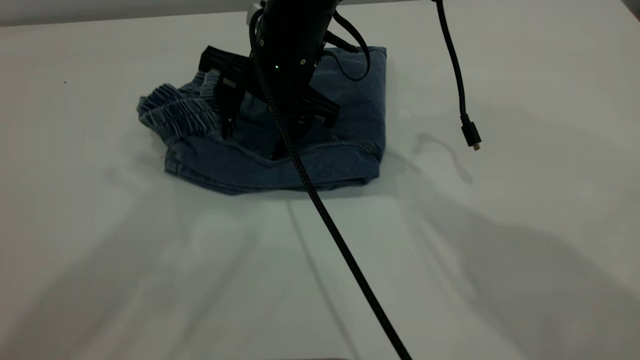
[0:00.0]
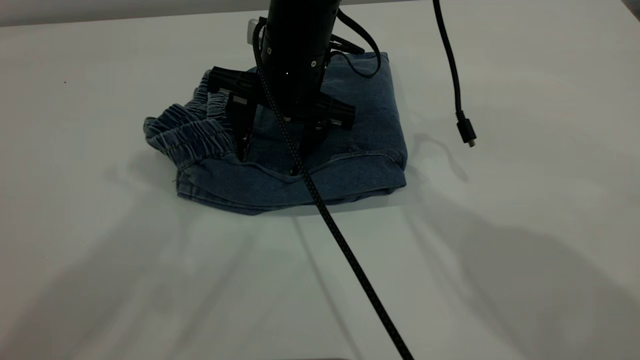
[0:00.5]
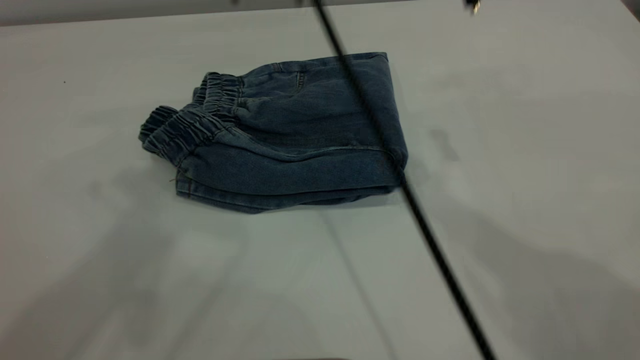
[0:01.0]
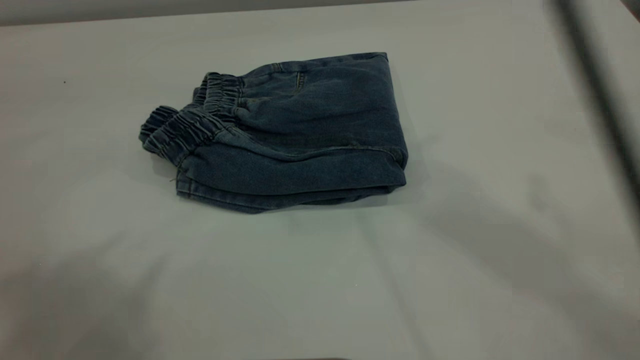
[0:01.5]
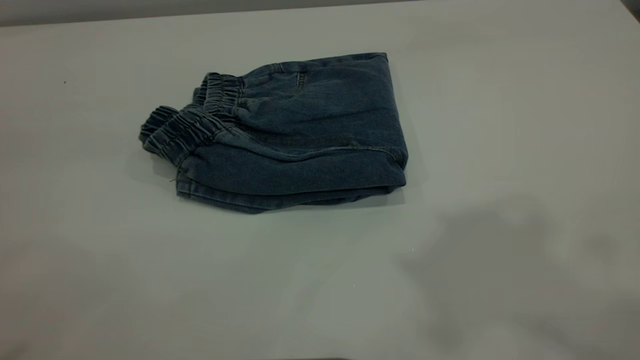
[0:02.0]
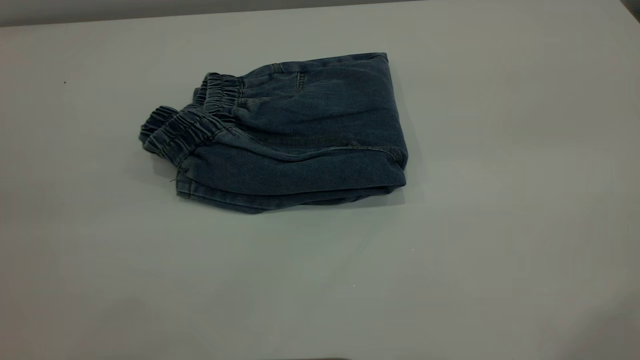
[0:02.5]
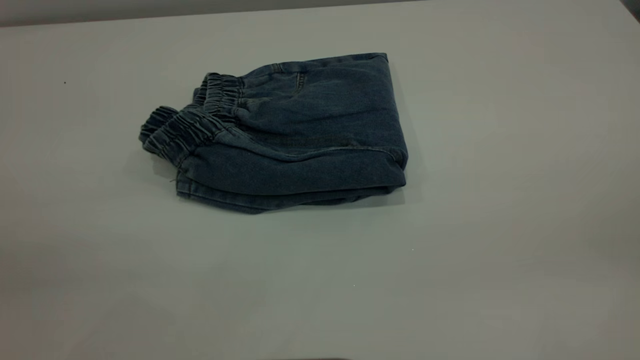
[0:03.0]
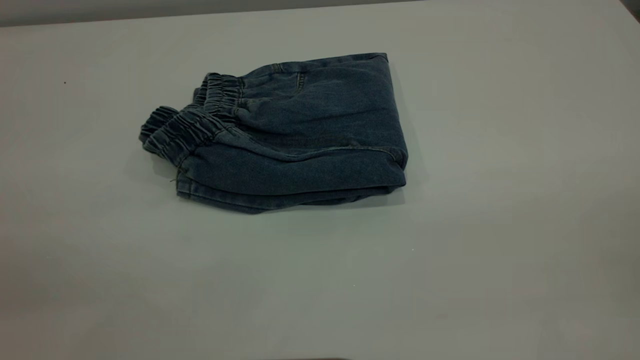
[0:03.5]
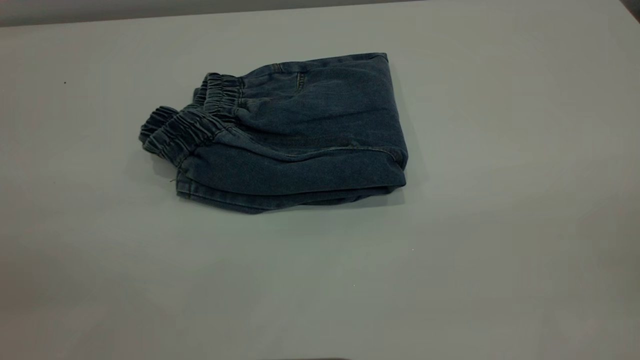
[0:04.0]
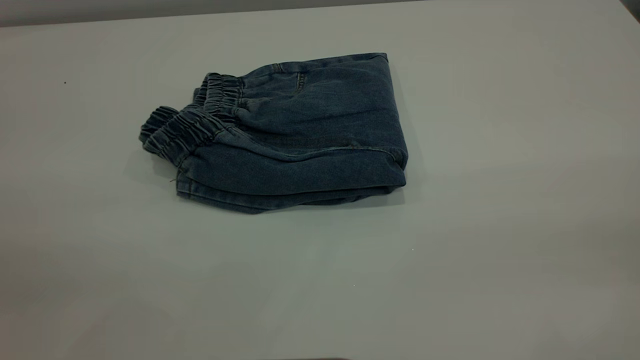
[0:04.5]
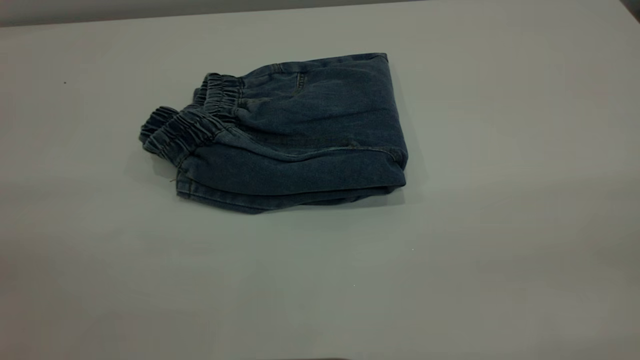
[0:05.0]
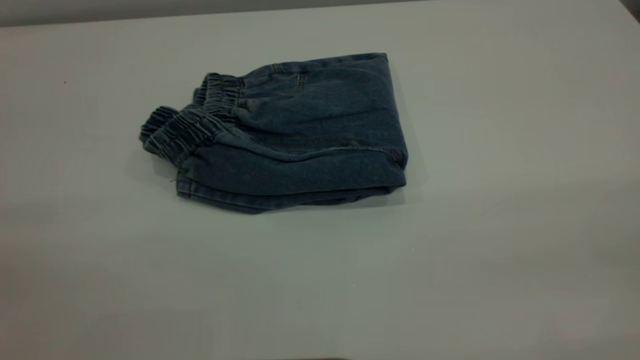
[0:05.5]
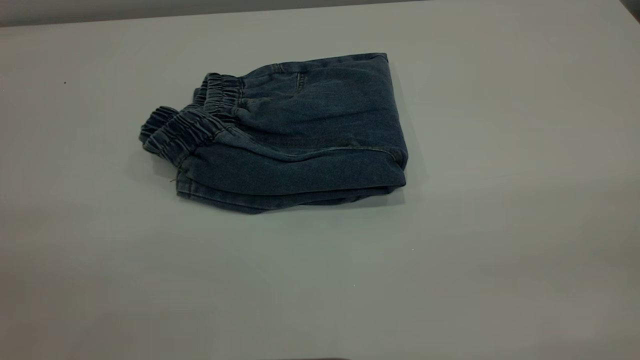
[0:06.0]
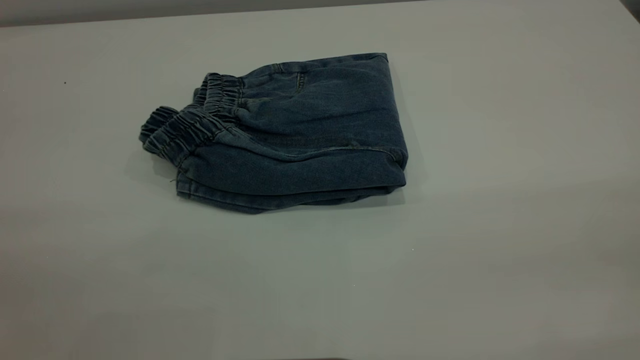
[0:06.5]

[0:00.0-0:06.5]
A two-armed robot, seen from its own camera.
0:00.0 to 0:02.0: The right gripper moves upward, backward and to the right, some 50 cm. The left gripper shifts some 25 cm backward and to the left.

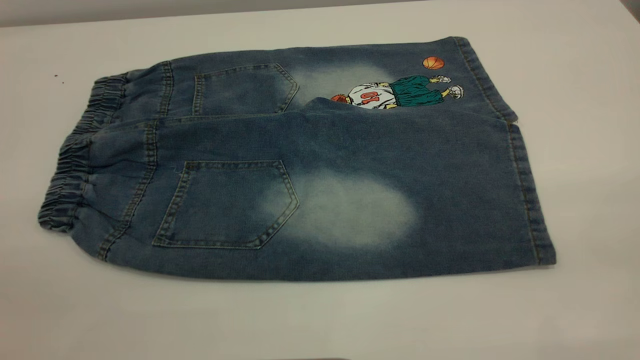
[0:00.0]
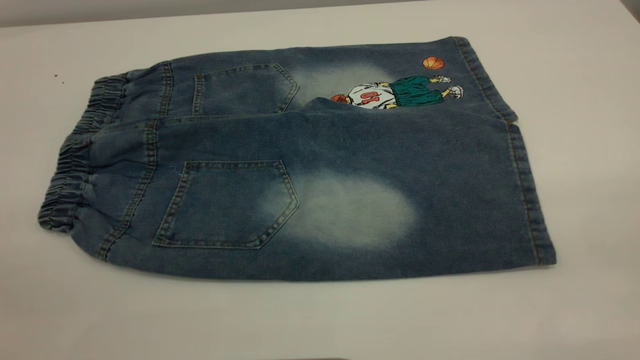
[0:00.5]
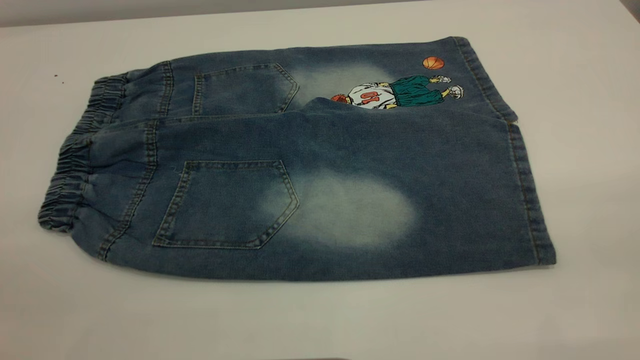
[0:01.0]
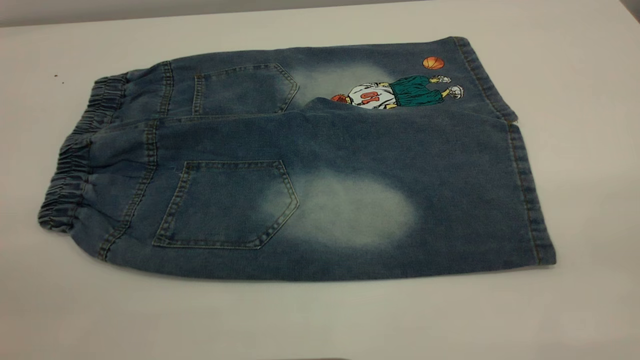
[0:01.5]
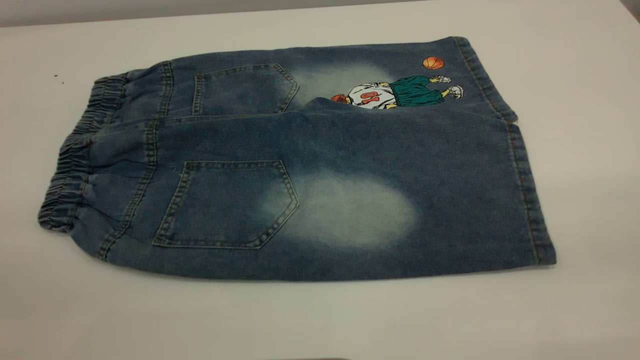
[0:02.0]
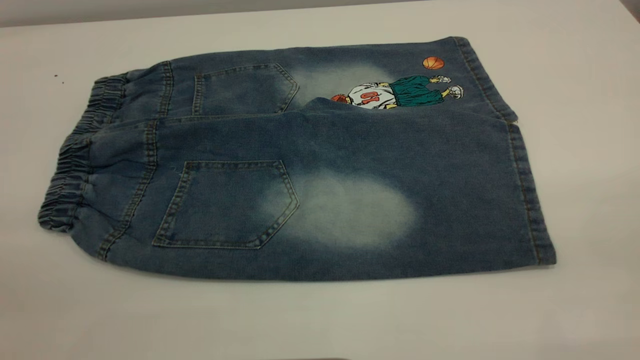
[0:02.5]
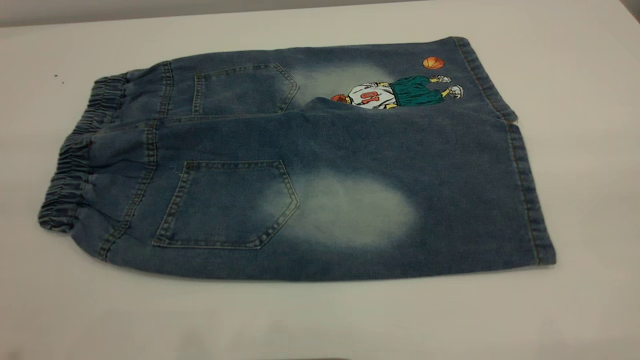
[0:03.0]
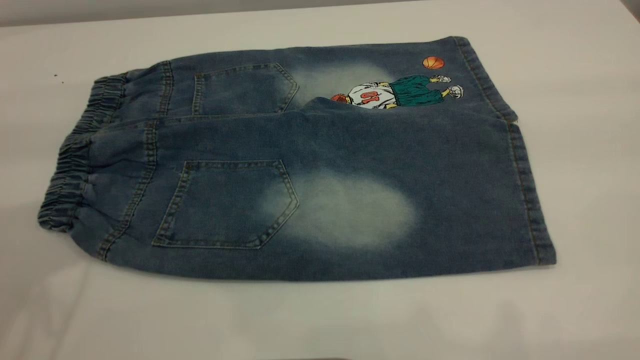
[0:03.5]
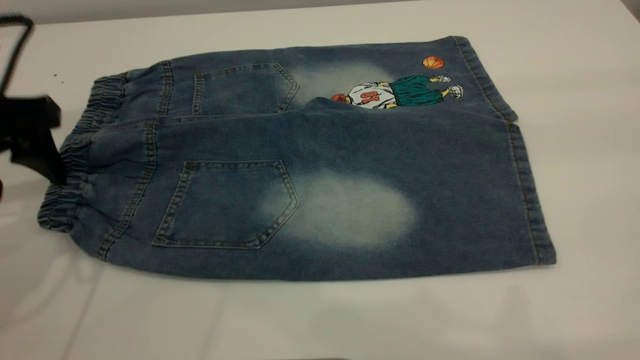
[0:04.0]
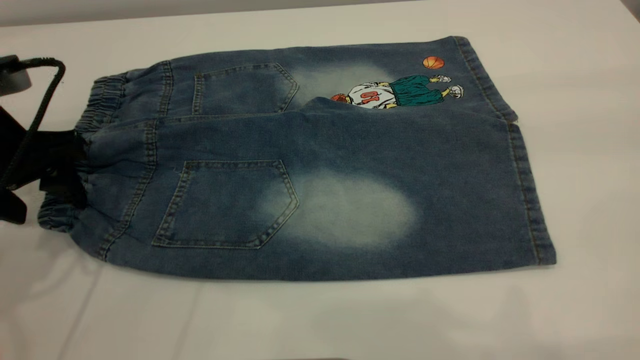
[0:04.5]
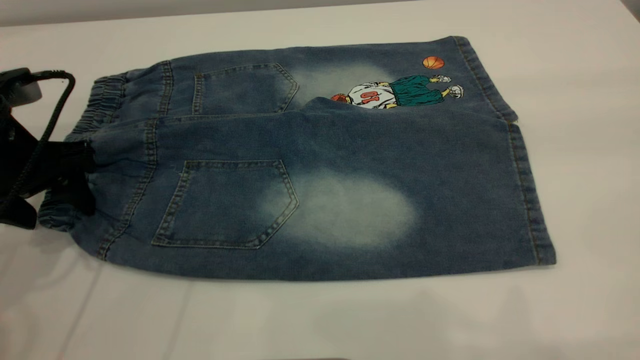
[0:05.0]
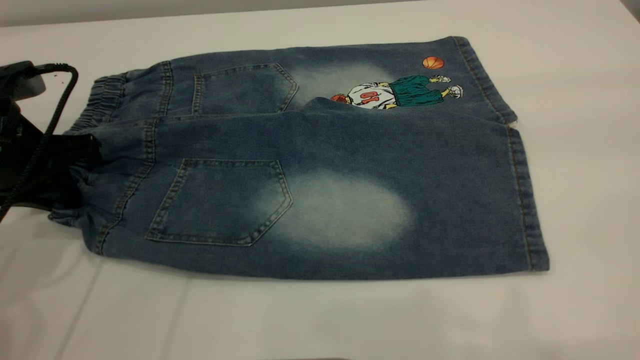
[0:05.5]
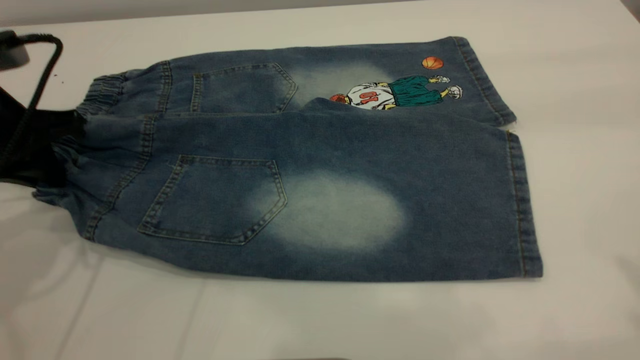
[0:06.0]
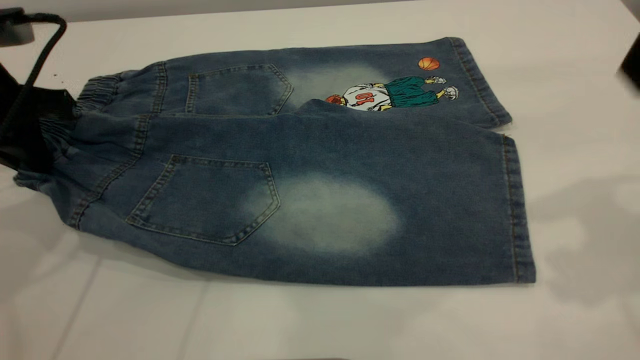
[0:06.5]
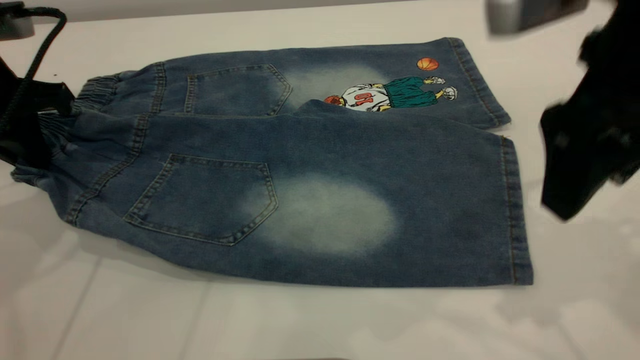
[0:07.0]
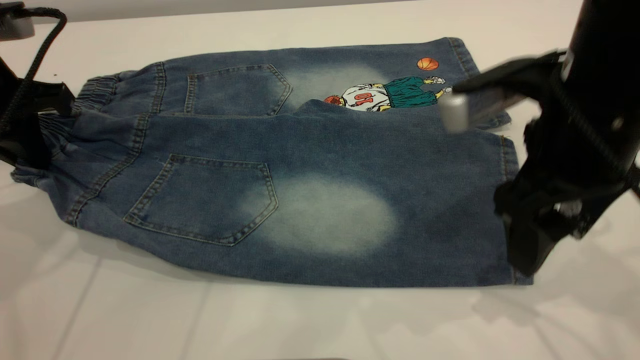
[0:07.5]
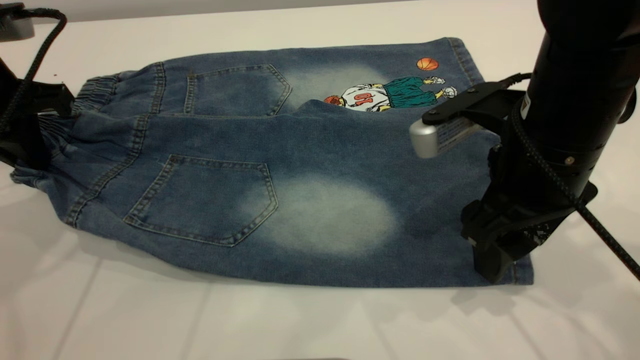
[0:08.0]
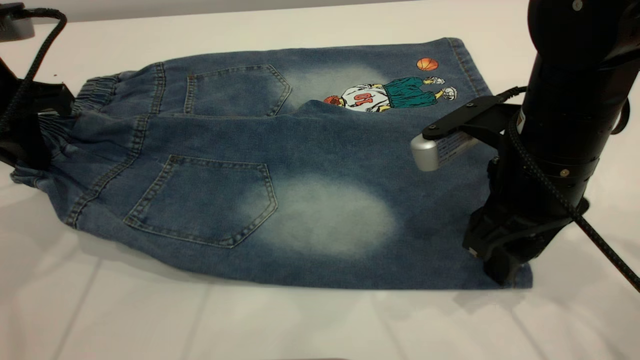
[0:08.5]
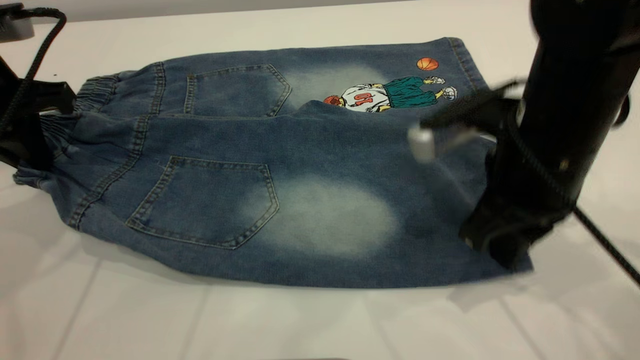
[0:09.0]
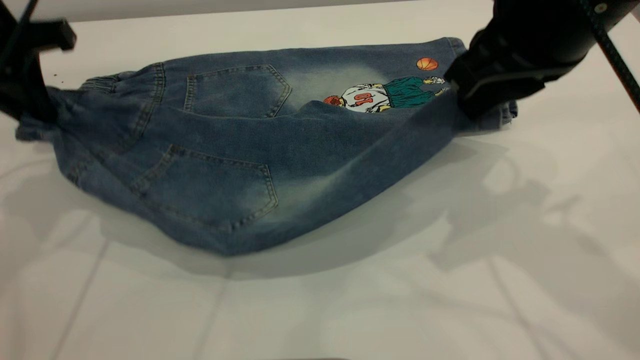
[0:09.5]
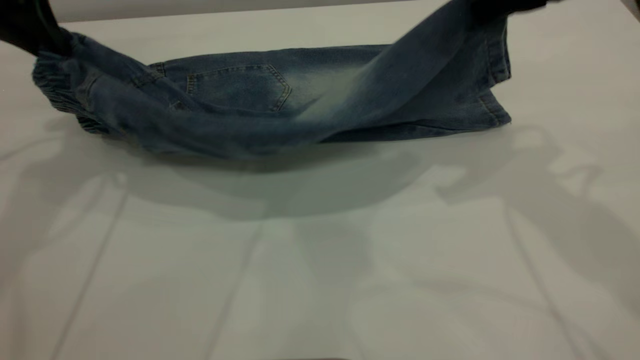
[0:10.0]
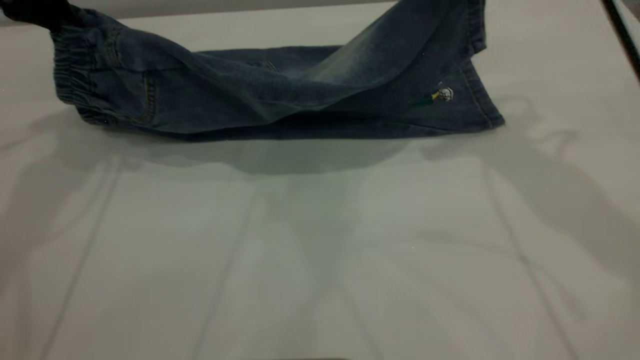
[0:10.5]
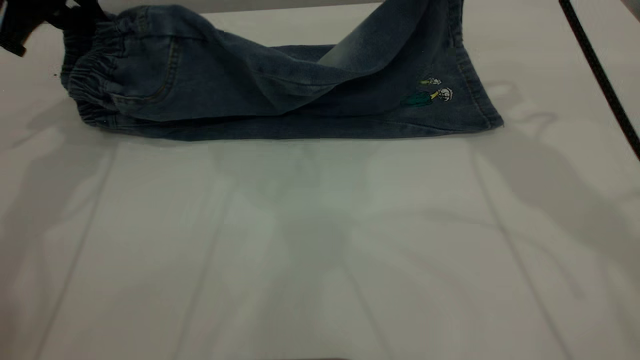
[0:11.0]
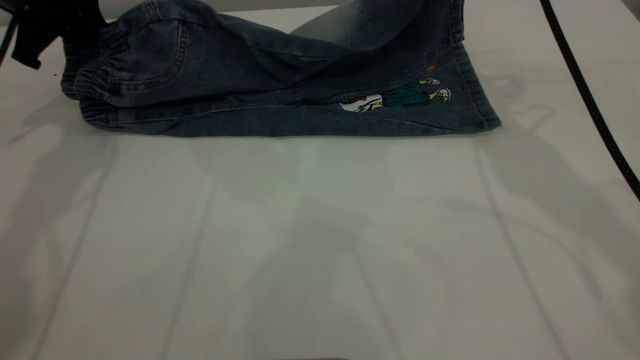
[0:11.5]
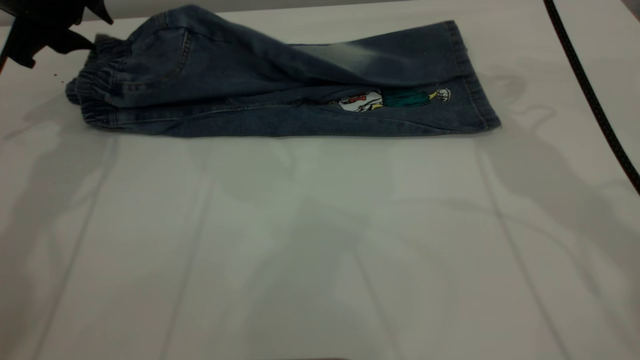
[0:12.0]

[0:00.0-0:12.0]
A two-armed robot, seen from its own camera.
0:00.0 to 0:02.0: Both grippers stay put.
0:02.0 to 0:04.0: The left gripper heads forward and downward, covering some 35 cm.
0:04.0 to 0:06.0: The left gripper closes.
0:06.0 to 0:08.0: The right gripper heads downward and to the left, covering roughly 30 cm.
0:08.0 to 0:10.0: Both grippers travel together upward and forward, some 10 cm. The right gripper closes.
0:10.0 to 0:12.0: The right gripper is displaced forward and downward by some 10 cm, and opens up. Meanwhile the left gripper travels downward and forward by about 10 cm, and opens.

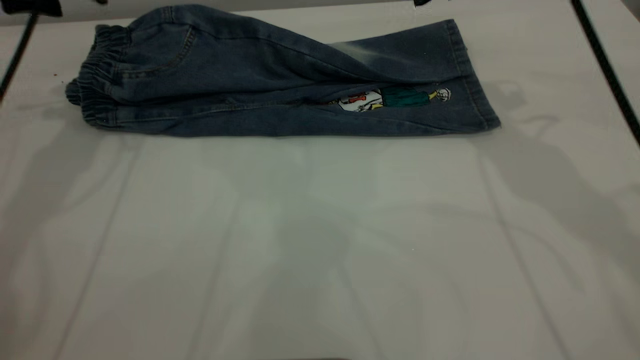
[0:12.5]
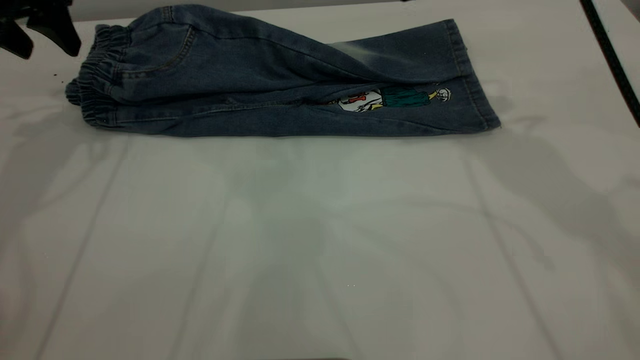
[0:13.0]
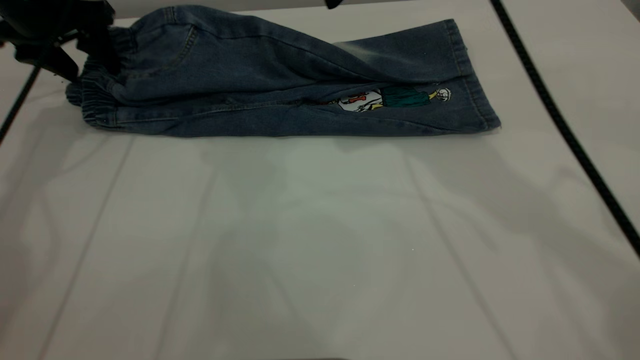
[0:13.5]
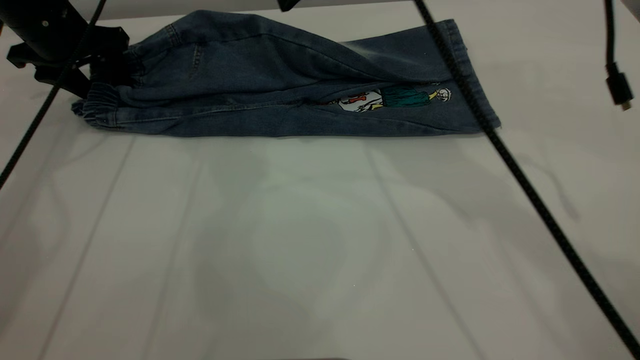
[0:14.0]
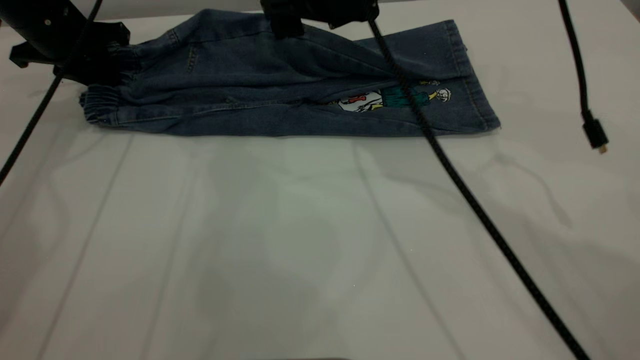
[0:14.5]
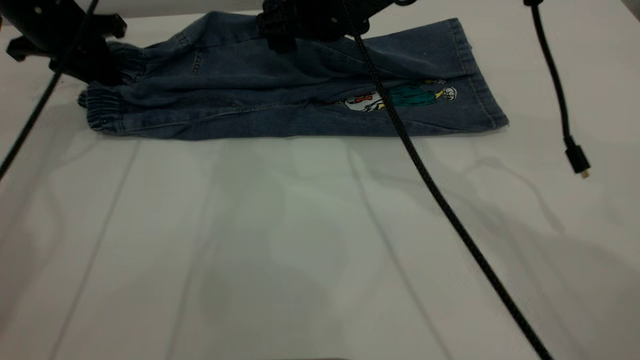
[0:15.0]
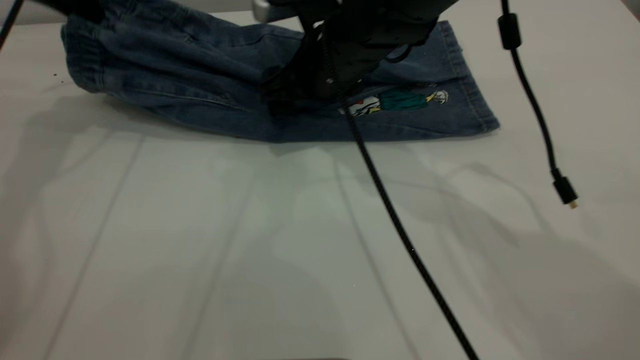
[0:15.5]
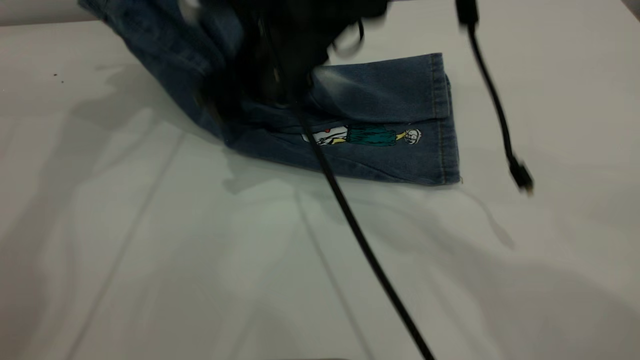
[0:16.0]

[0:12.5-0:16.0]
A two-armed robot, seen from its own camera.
0:12.5 to 0:14.5: The left gripper goes some 10 cm downward, and closes its fingers. The right gripper travels to the left by some 15 cm.
0:14.5 to 0:16.0: The left gripper is displaced upward and to the right by roughly 20 cm; the right gripper shifts roughly 10 cm to the left and backward.
